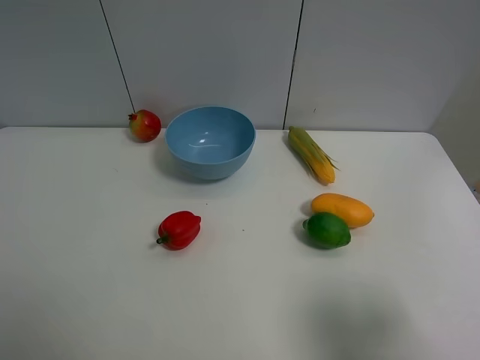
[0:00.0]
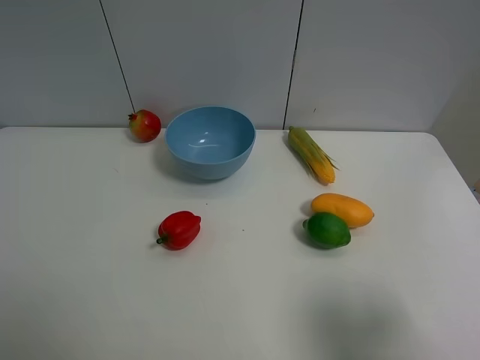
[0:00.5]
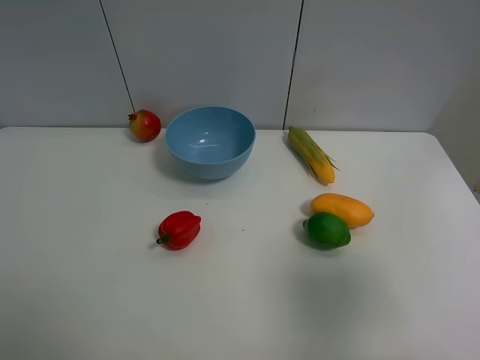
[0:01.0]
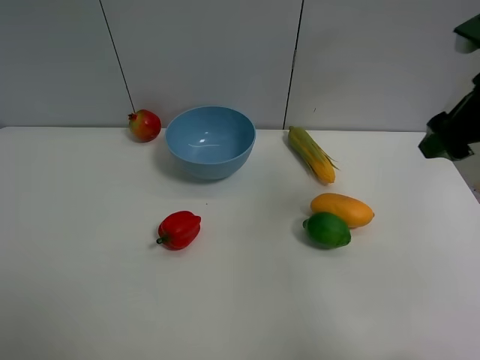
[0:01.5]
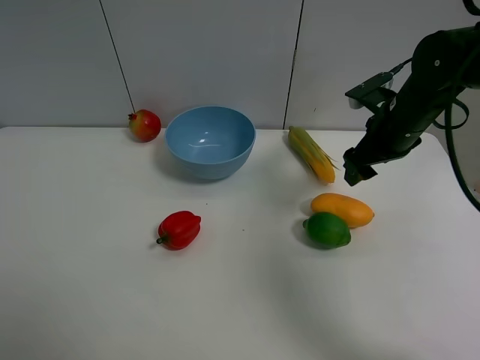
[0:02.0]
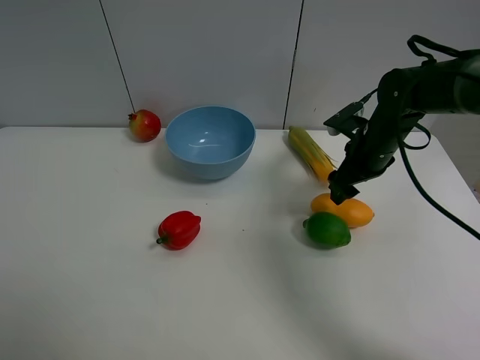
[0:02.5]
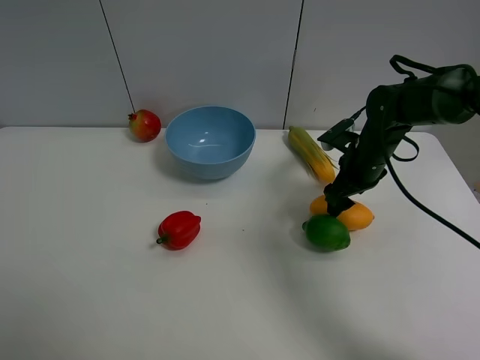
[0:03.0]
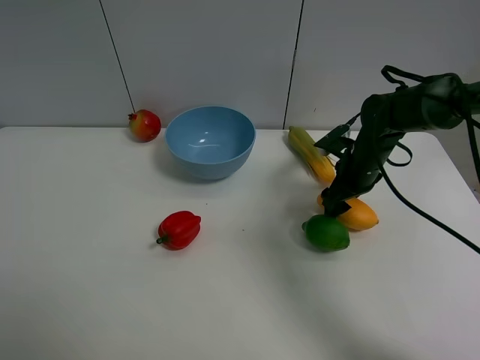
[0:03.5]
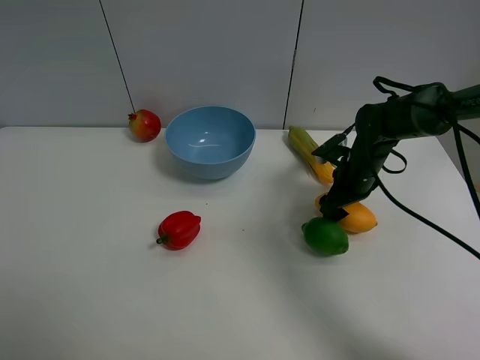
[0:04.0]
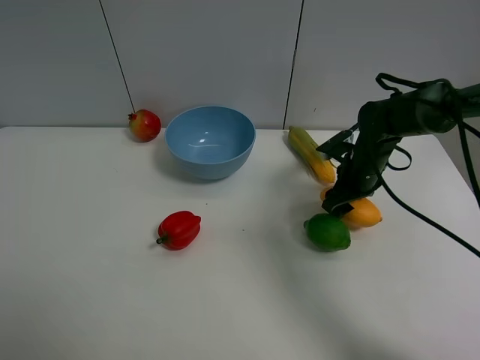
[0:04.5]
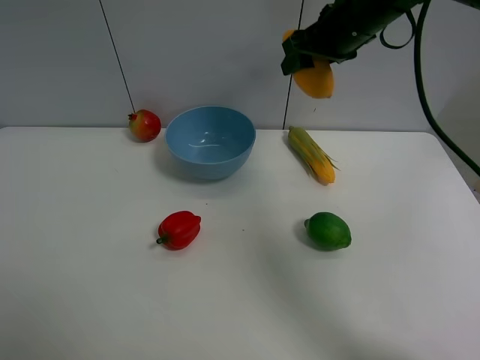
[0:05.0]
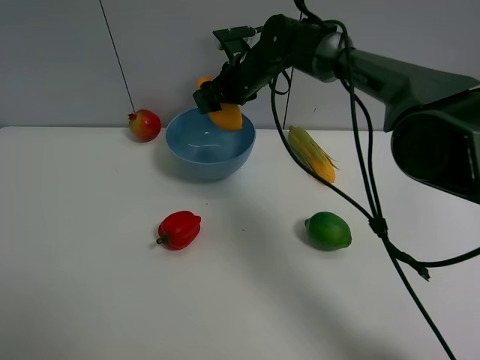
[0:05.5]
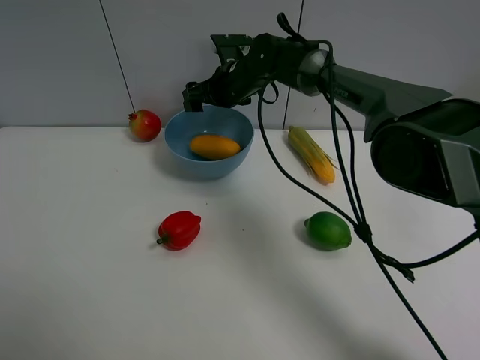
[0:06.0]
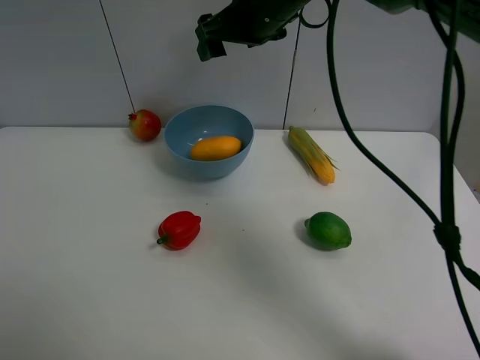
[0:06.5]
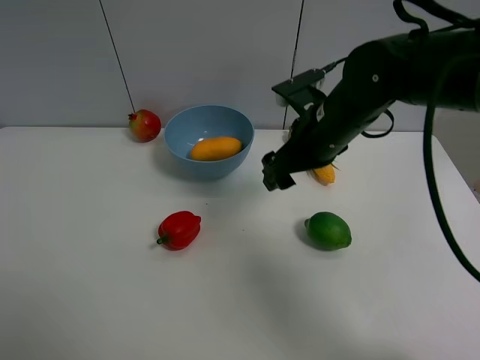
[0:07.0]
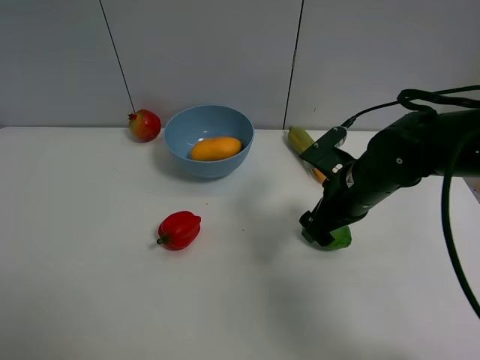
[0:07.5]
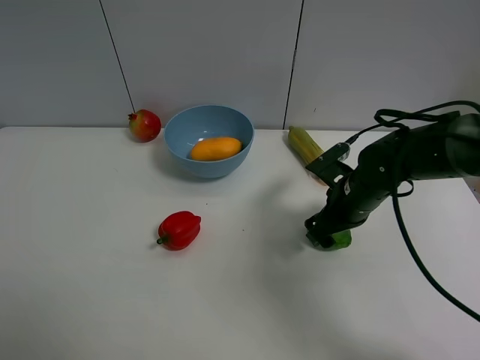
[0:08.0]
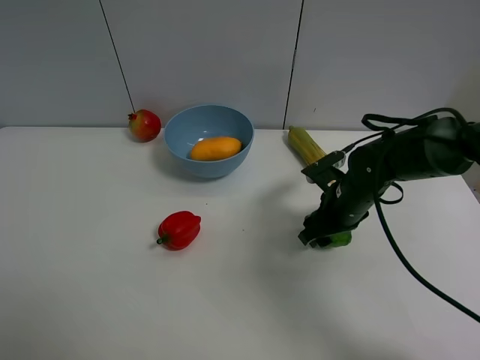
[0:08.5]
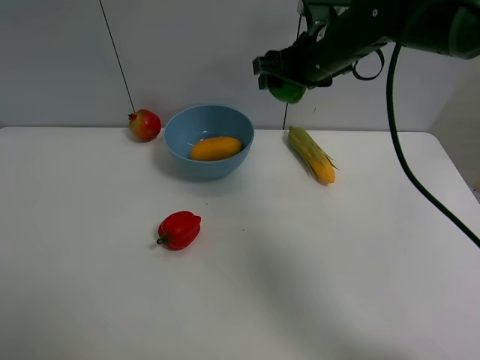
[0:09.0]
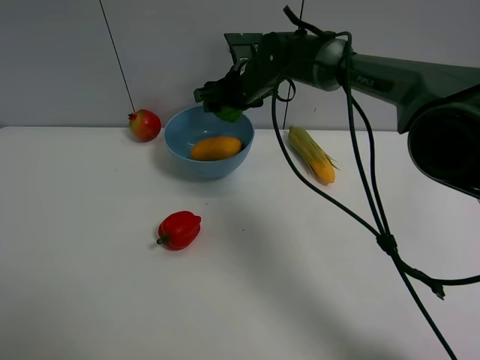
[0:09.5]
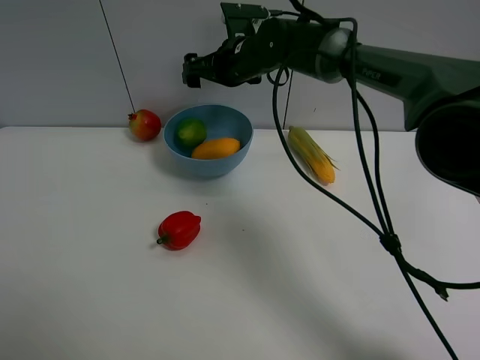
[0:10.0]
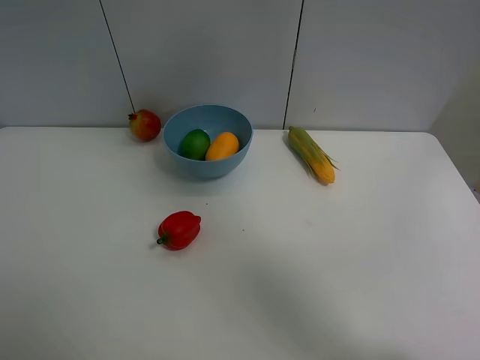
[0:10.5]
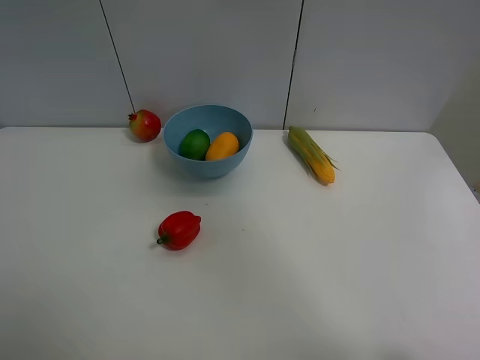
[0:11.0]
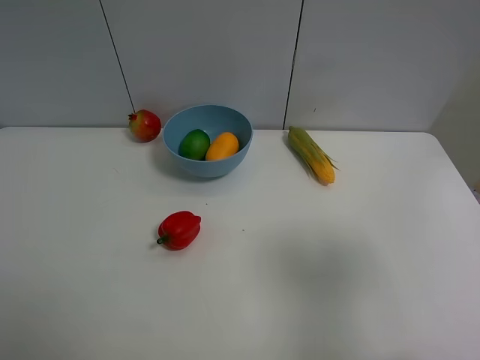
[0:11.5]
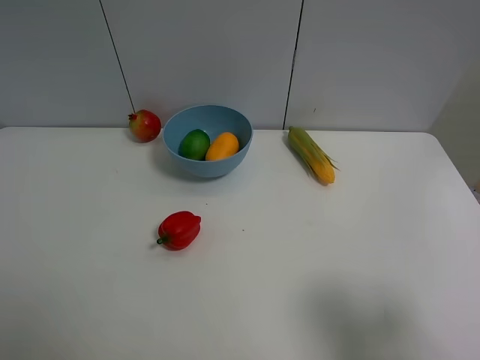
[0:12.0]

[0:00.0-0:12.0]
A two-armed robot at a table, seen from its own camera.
Task of the whole recording: Put the three fruits on the table into a bowl.
Step, 0:00.0 to 0:04.0: Grasp the mango with right gripper.
Step, 0:04.5 to 0:05.5: Place the mango in the blue bowl with right gripper.
Step, 0:06.0 to 0:08.0: Grasp the green lemon with right gripper.
Step, 0:08.5 to 0:09.5: Place the green lemon in the blue bowl with right gripper.
0:00.0 to 0:02.0: The right gripper moves forward, about 35 cm.
0:02.0 to 0:04.0: The right gripper shifts some 10 cm downward.
0:04.0 to 0:06.0: The right gripper travels to the left, forward and upward by approximately 25 cm, and closes, then reopens.
0:06.0 to 0:08.0: The right gripper shifts about 25 cm backward, to the right and downward.
0:08.0 to 0:10.0: The right gripper swings up and down, about 20 cm each way, with 2 reversals, and opens.
0:10.0 to 0:12.0: The right gripper shifts some 50 cm backward and to the right.

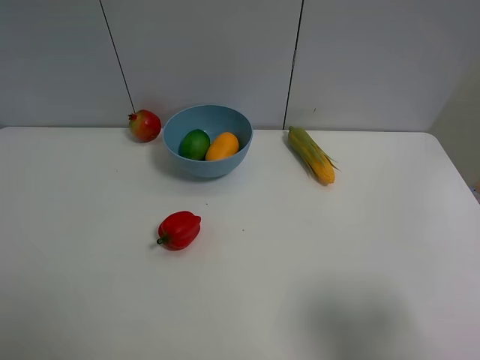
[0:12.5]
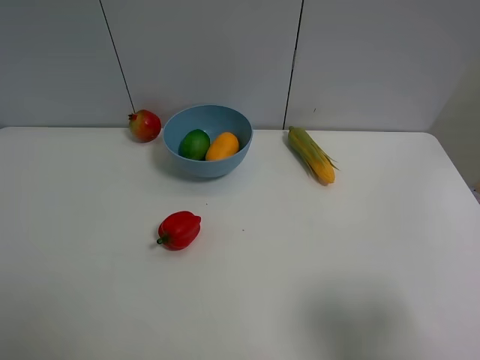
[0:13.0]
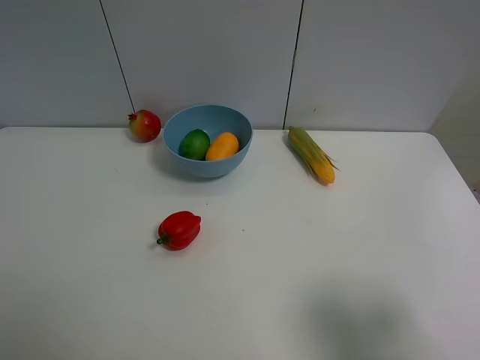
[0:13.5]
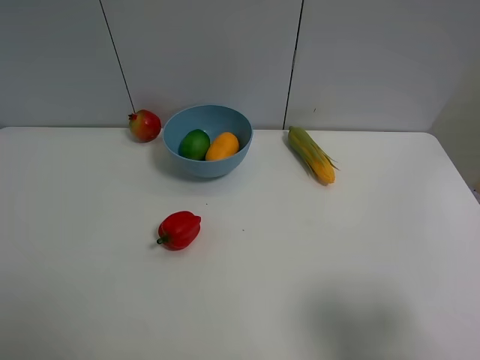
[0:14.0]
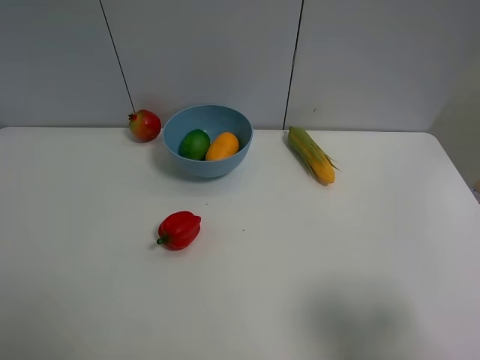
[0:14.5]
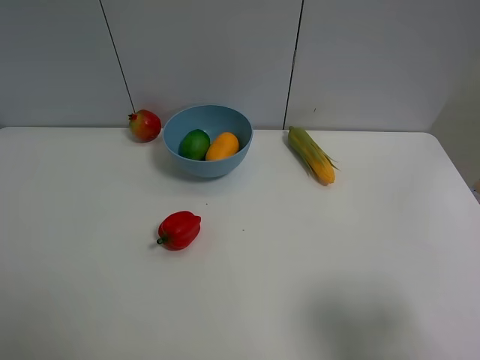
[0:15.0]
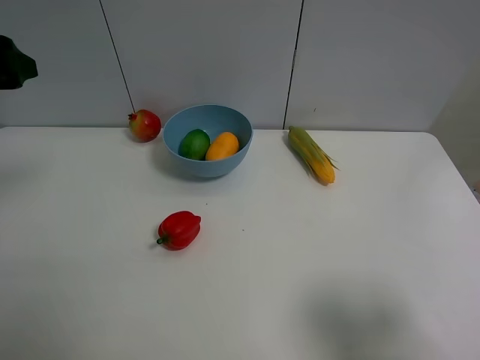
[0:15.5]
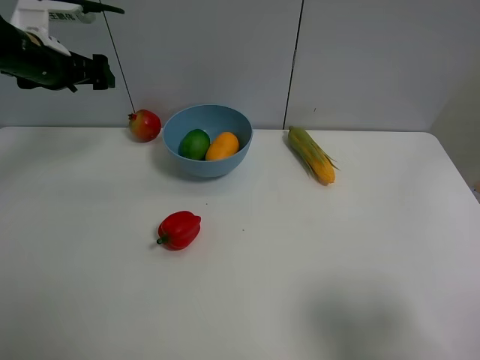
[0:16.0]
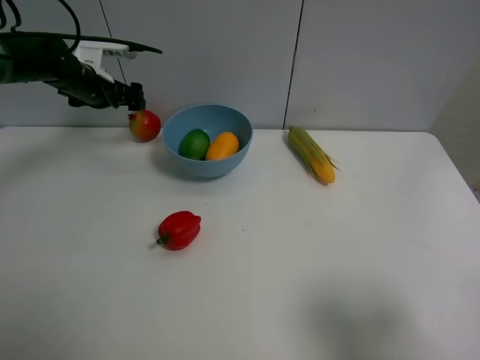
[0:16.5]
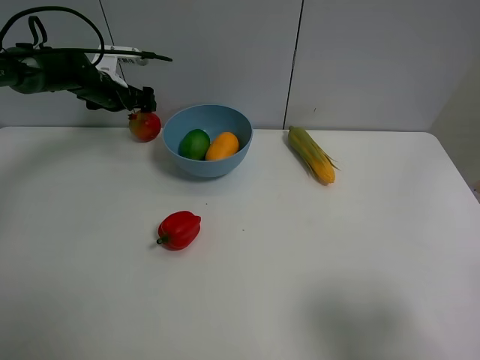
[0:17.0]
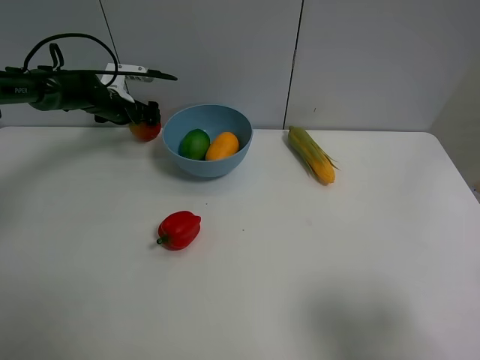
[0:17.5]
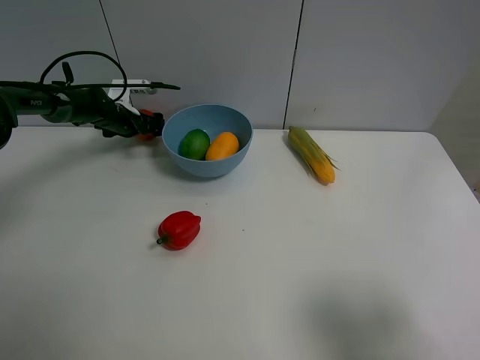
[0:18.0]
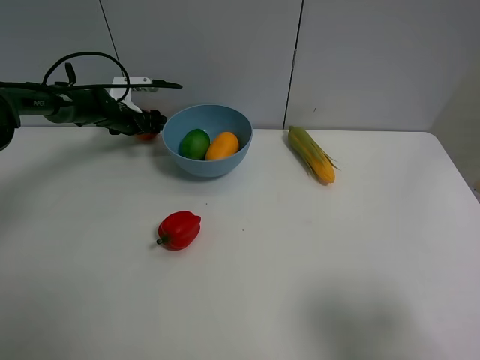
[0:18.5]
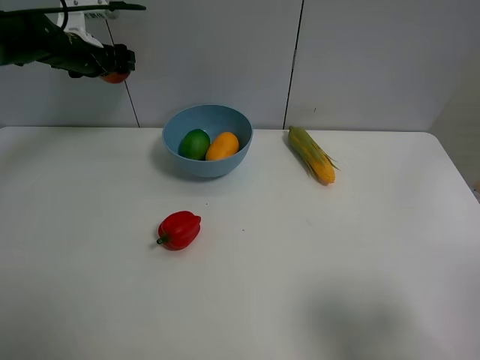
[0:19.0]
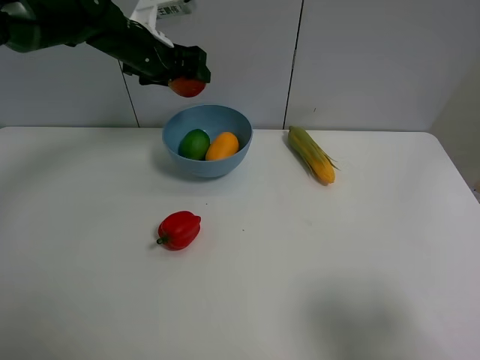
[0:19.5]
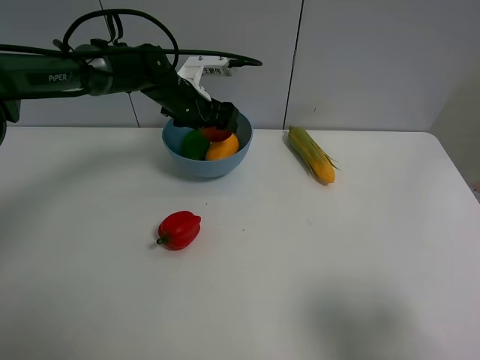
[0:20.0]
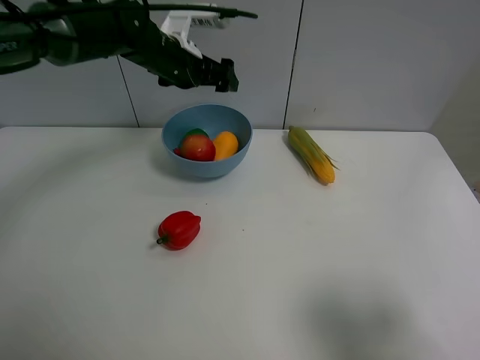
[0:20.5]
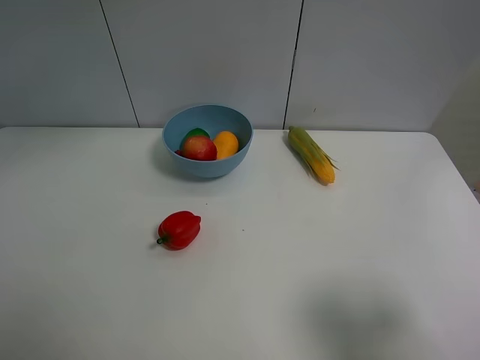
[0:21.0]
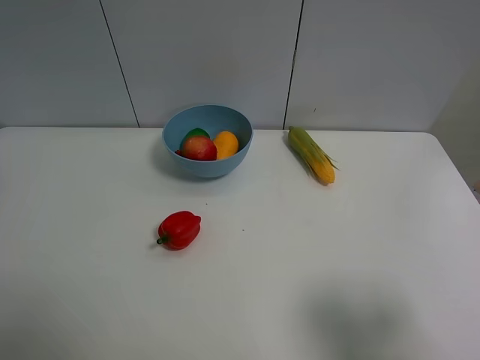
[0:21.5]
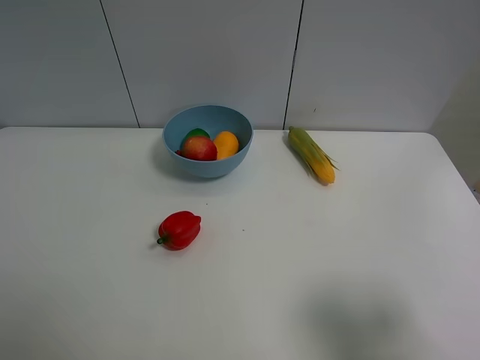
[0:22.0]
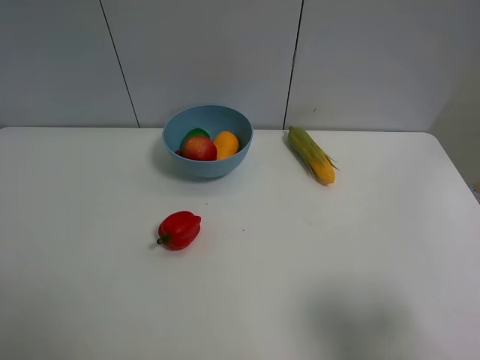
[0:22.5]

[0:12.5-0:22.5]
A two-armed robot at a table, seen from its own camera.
Task of the whole recording: Put the three fruits on the table into a bowl.
Step, 0:12.5 to 0:18.0: Grasp the pomegranate with left gripper.
Step, 0:18.5 to 0:20.0: Place the pomegranate in the blue bowl with left gripper.
0:12.5 to 0:14.5: Both grippers stay put.
0:14.5 to 0:16.5: The left gripper goes roughly 50 cm forward.
0:16.5 to 0:18.5: The left gripper heads downward, covering some 10 cm, and closes.
0:18.5 to 0:20.5: The left gripper travels upward, to the right and backward by approximately 25 cm, and opens its fingers.
0:20.5 to 0:22.5: The left gripper heads backward and to the left, covering roughly 50 cm.
